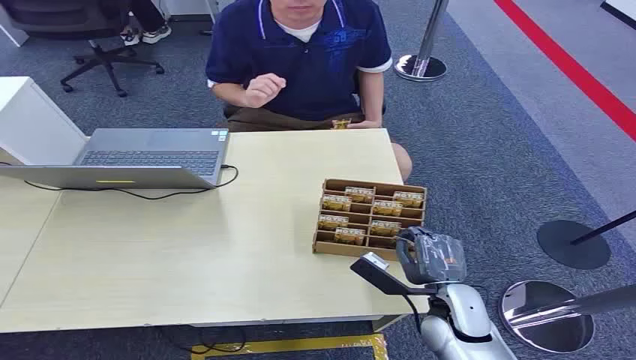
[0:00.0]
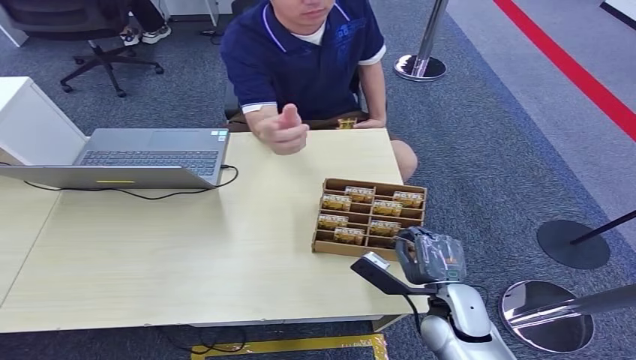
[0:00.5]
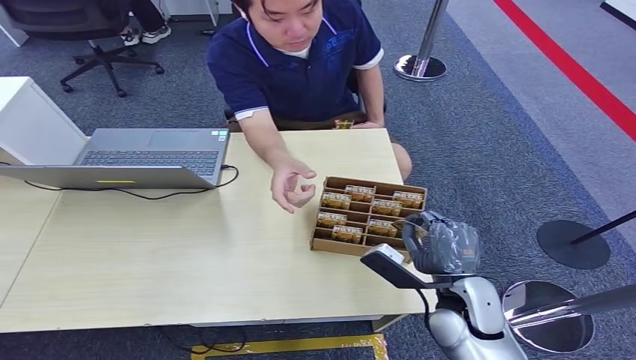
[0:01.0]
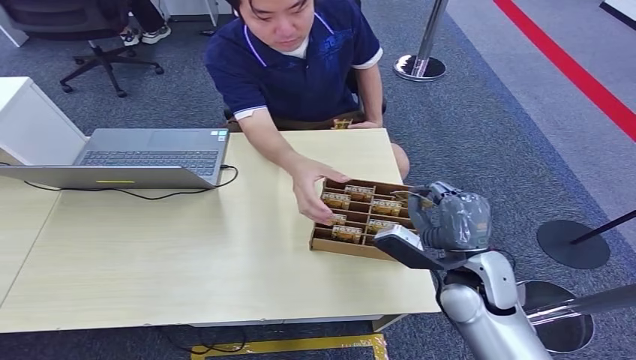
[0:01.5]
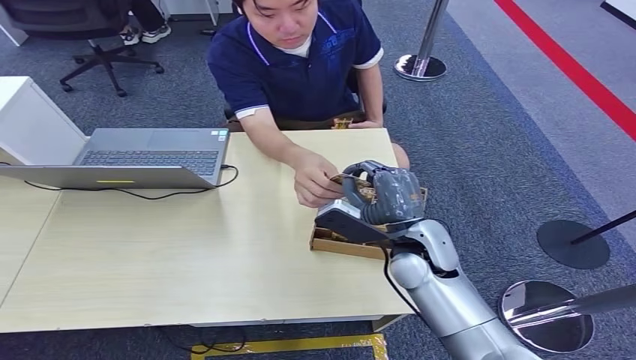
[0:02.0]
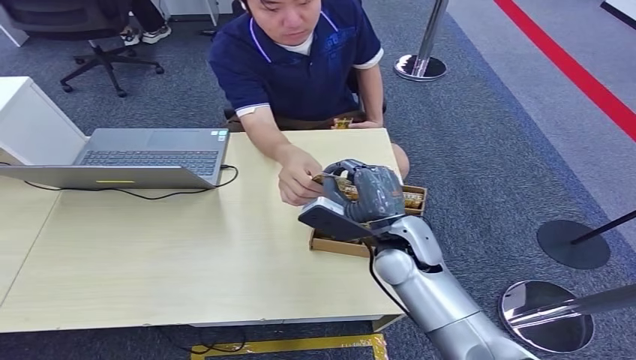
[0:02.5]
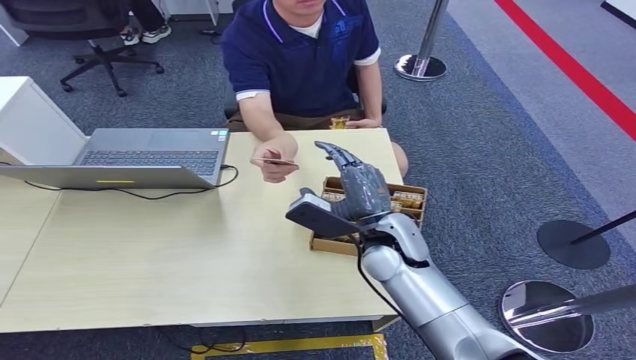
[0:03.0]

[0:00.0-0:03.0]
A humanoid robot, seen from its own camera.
Step, 0:00.0 to 0:01.5: Pick up the room card from the card holder.
Step, 0:02.0 to 0:03.0: Hand the room card to the target.
0:01.5 to 0:03.0: The right hand moves to the left and forward, some 15 cm.

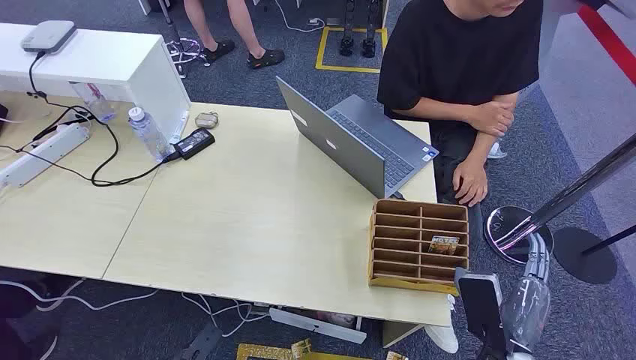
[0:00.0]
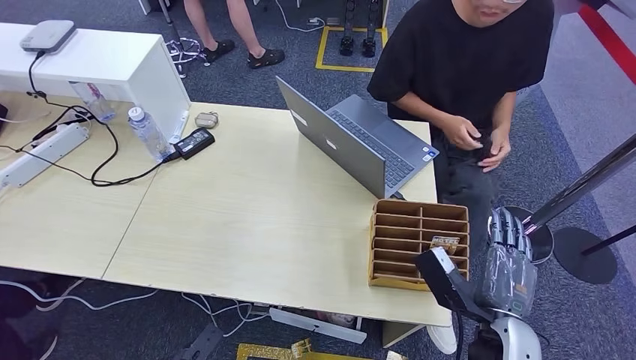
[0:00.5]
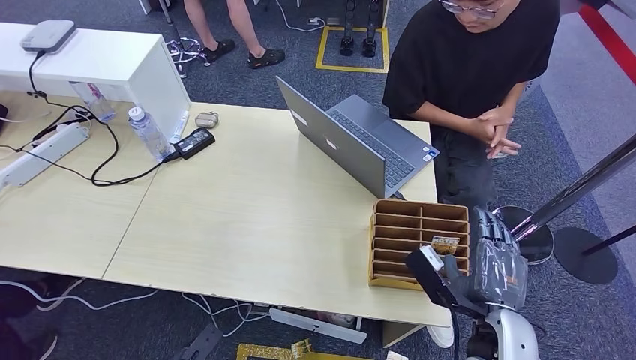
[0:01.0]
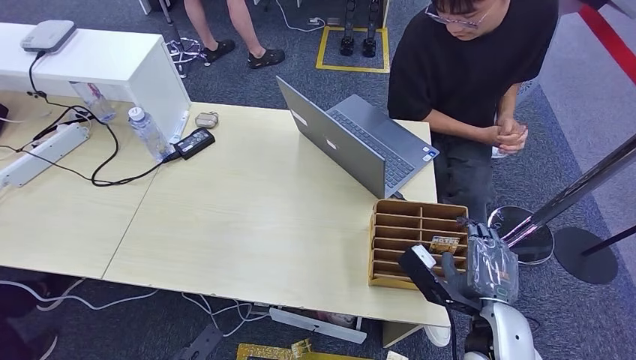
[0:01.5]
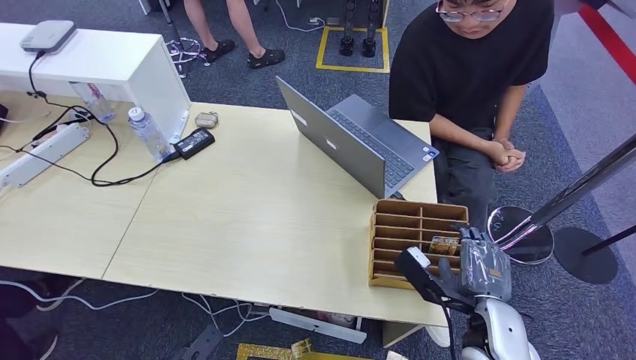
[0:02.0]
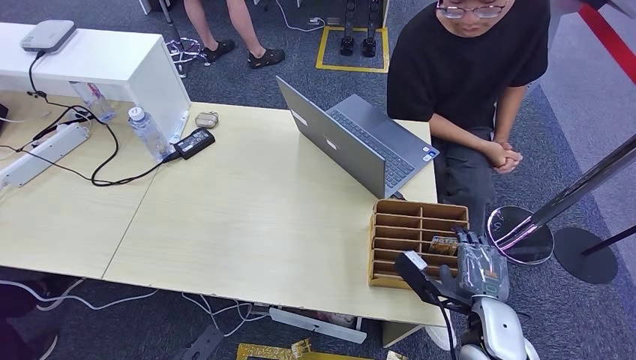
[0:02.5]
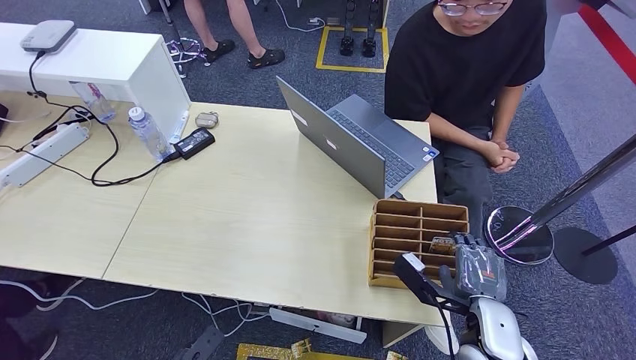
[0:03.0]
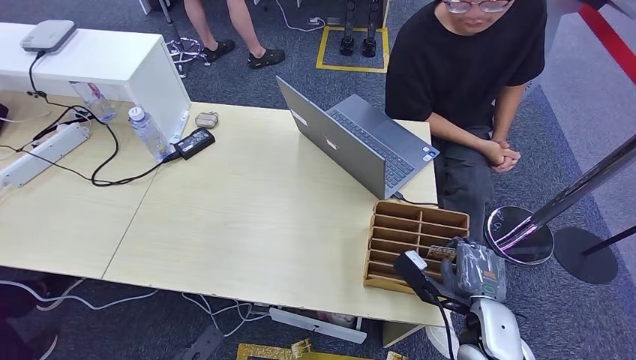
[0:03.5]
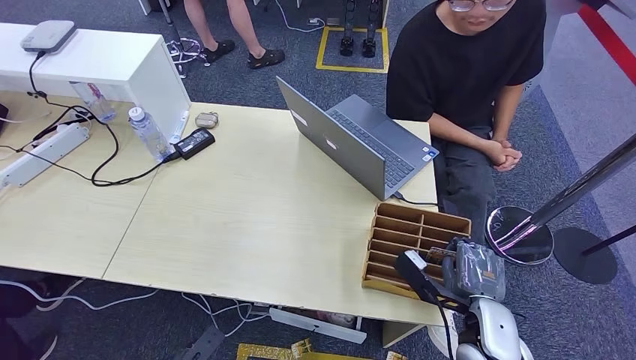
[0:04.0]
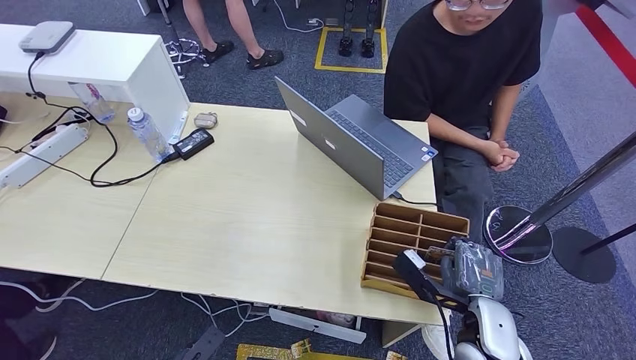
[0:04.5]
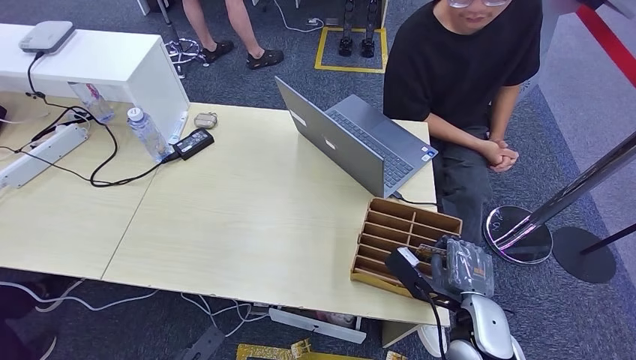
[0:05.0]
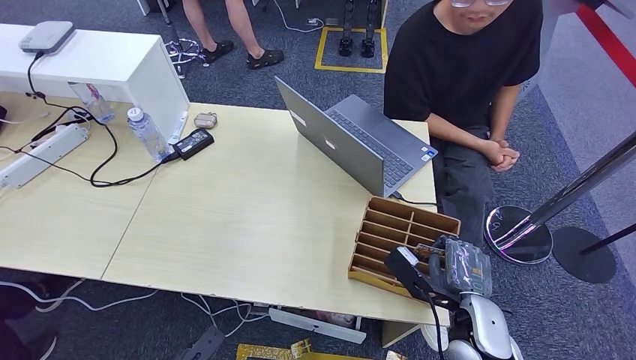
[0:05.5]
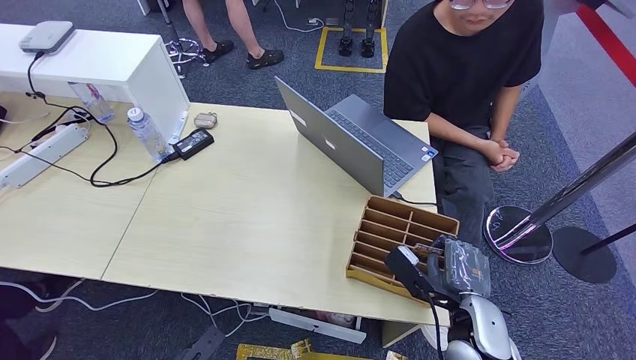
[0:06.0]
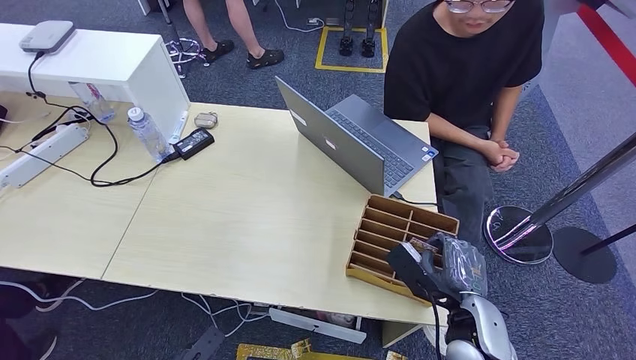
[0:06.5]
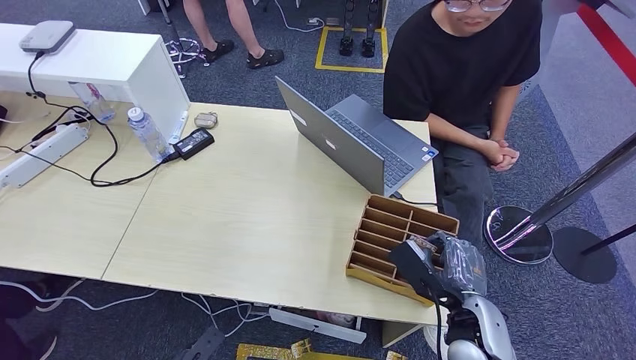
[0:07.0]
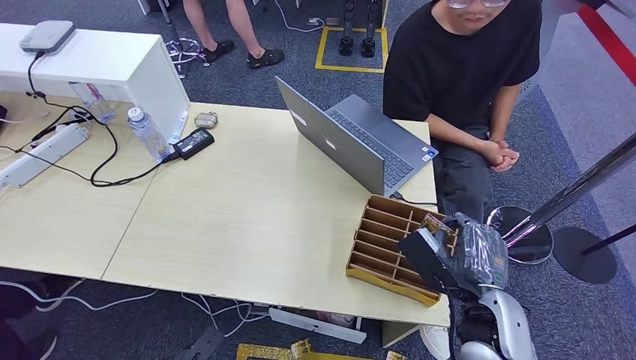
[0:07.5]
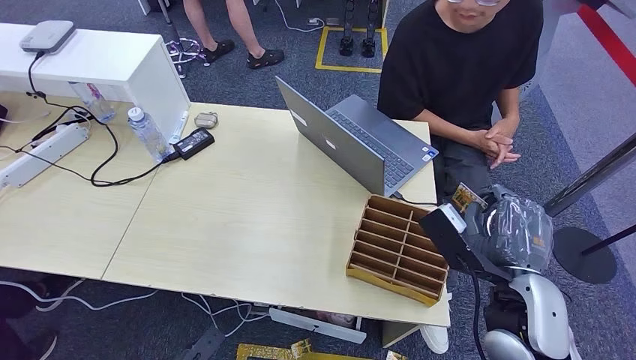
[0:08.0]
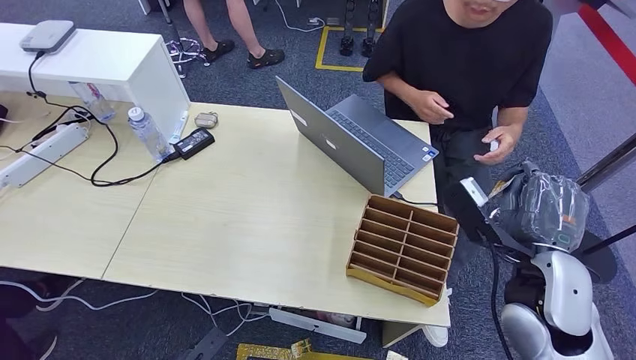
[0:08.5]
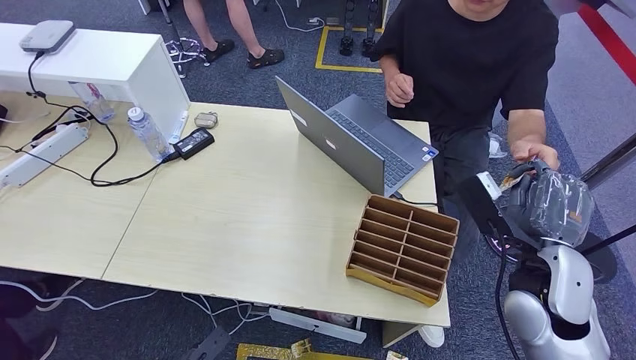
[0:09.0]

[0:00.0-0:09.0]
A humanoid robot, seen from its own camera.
Step, 0:00.0 to 0:07.5: Pick up the room card from the card holder.
0:02.0 to 0:04.5: There are only small adjustments of the hands.
0:07.0 to 0:09.0: The right hand goes some 15 cm upward, to the right and forward.

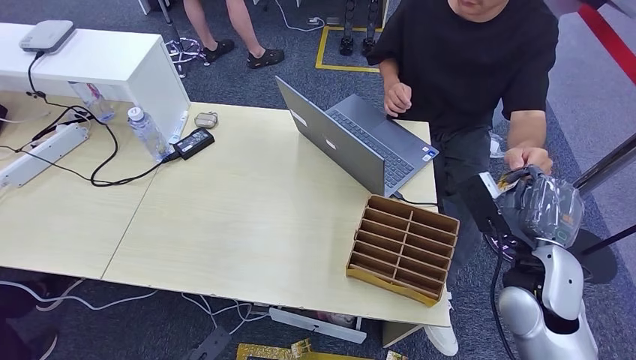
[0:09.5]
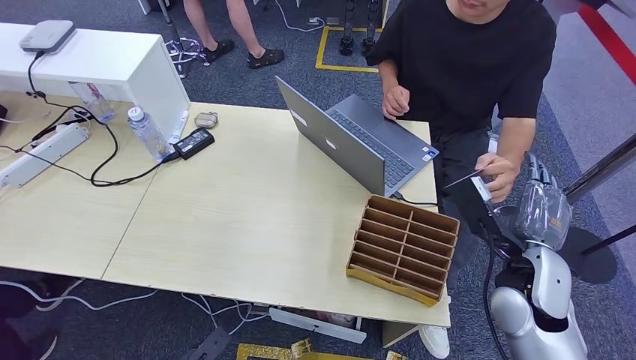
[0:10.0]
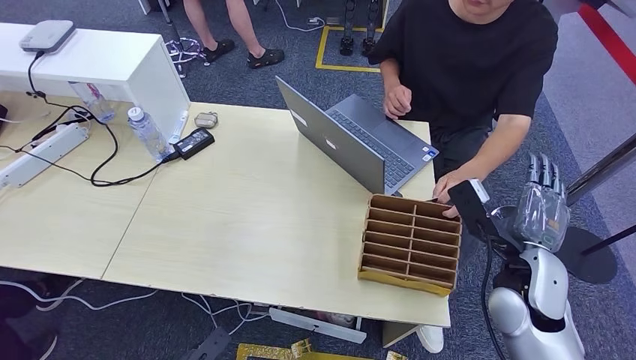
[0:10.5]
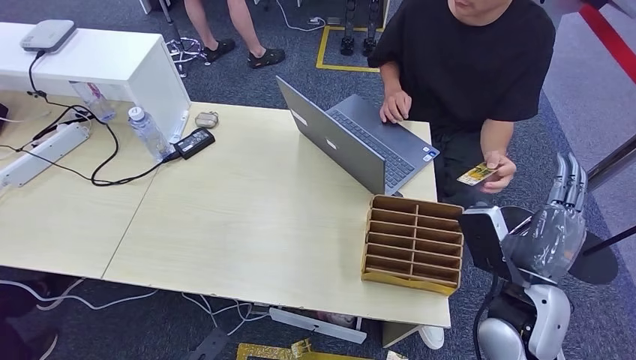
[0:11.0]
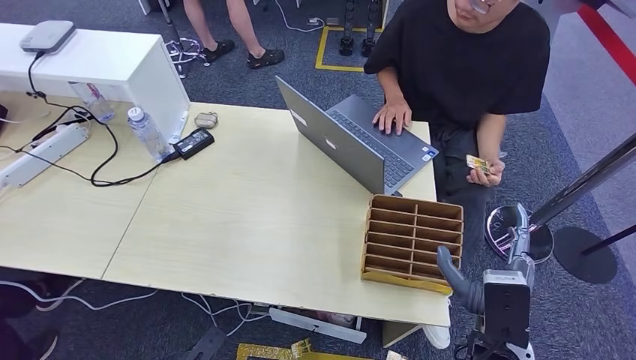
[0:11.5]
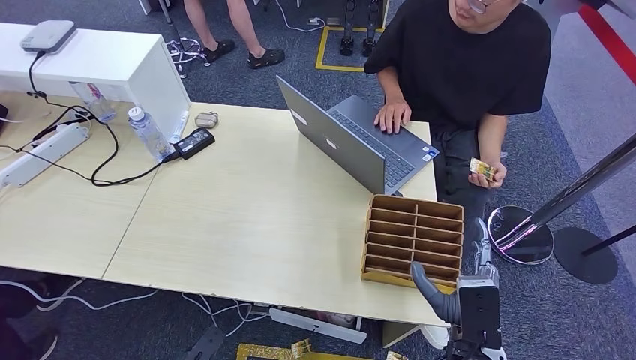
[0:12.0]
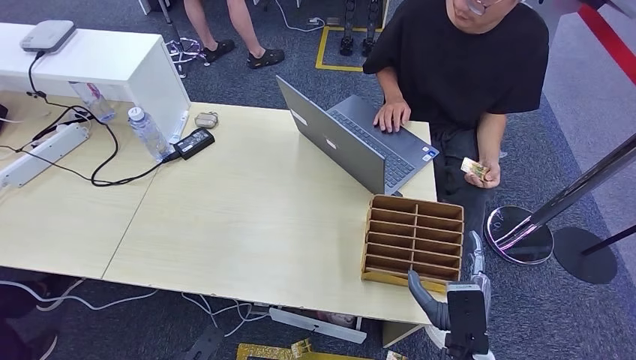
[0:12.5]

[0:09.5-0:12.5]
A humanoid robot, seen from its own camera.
Step, 0:09.5 to 0:12.5: Hand the room card to the target.
0:09.5 to 0:11.0: The right hand shifts by some 5 cm.
0:11.0 to 0:12.5: The right hand shifts approximately 15 cm downward, backward and to the left.

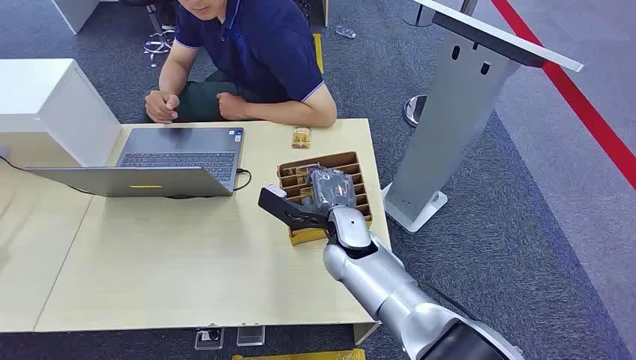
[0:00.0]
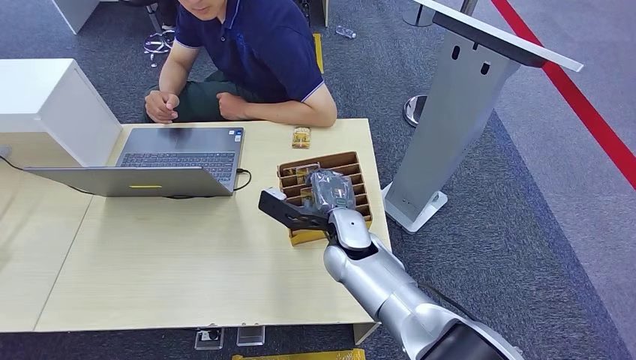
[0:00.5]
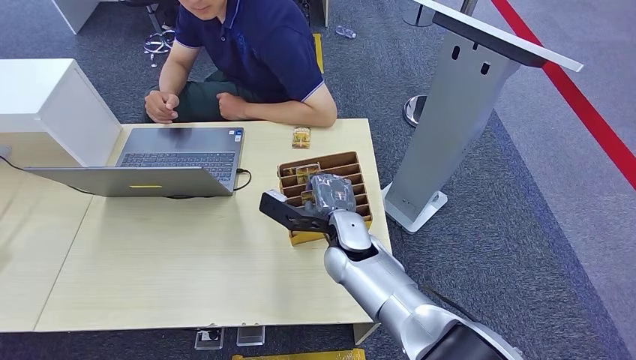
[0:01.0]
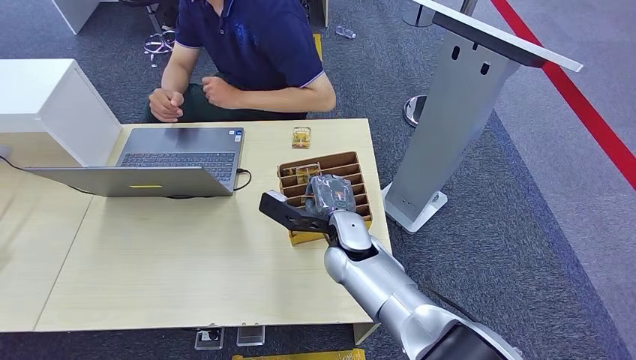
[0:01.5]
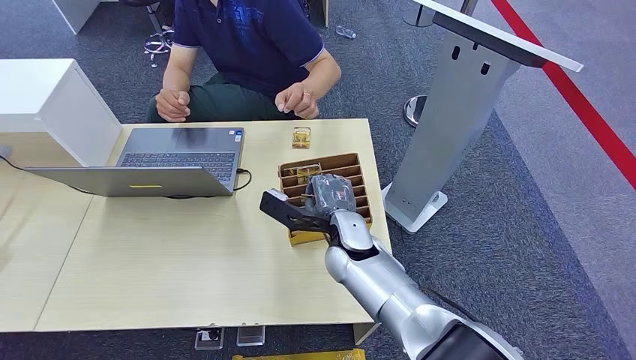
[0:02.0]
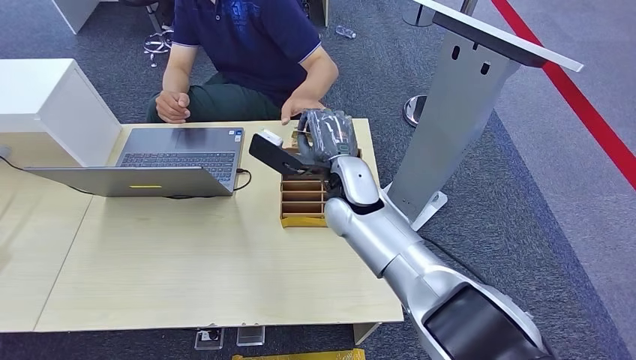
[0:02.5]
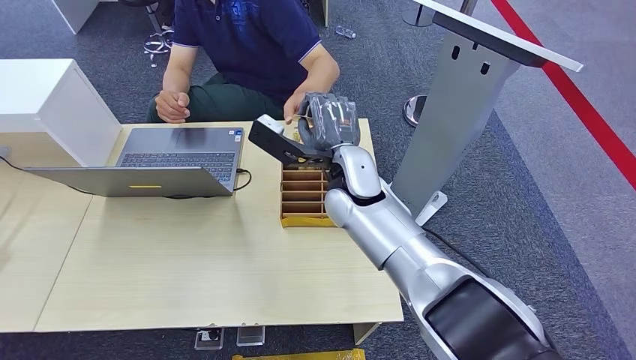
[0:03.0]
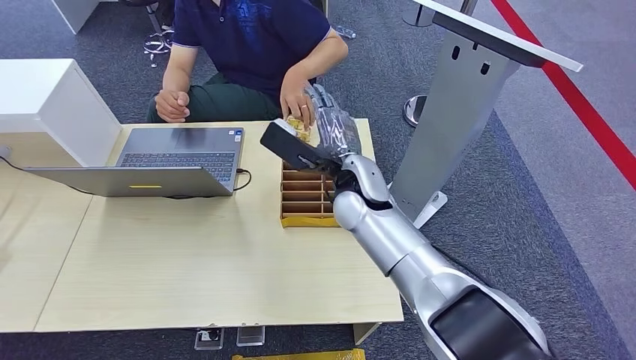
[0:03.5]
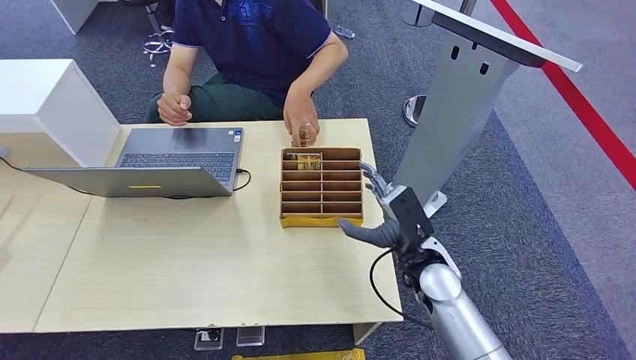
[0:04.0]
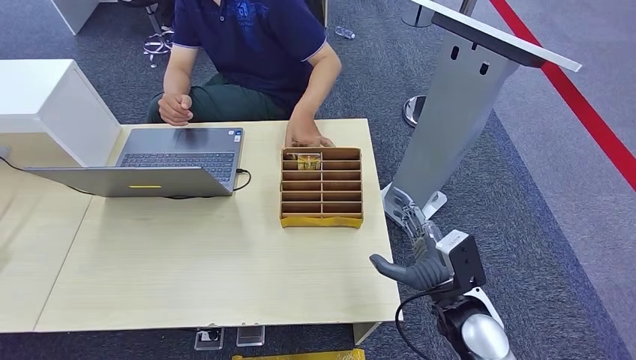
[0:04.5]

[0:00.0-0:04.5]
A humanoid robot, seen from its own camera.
Step, 0:00.0 to 0:02.5: Pick up the room card from the card holder.
Step, 0:03.0 to 0:04.5: Hand the room card to the target.
0:02.0 to 0:04.5: The right hand heads to the right and backward, covering roughly 20 cm.
